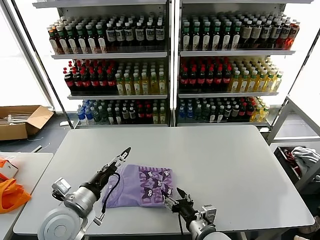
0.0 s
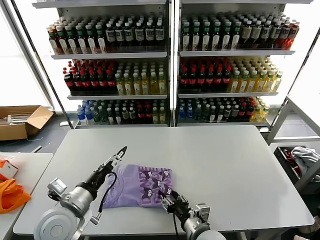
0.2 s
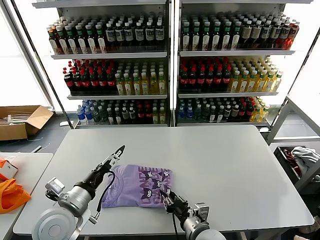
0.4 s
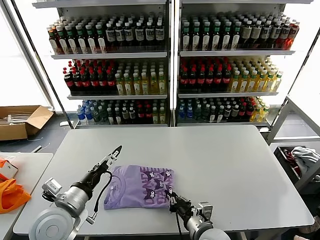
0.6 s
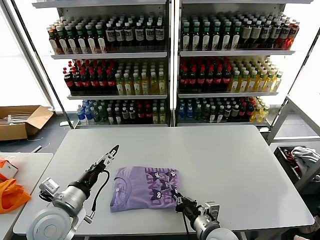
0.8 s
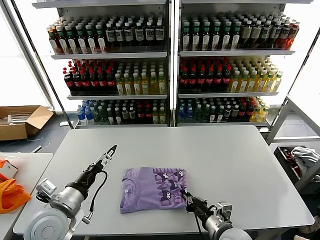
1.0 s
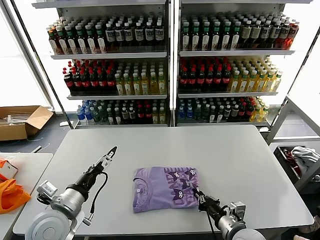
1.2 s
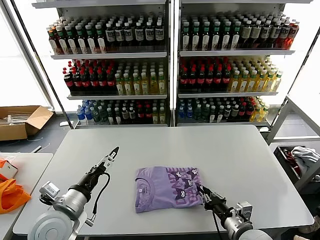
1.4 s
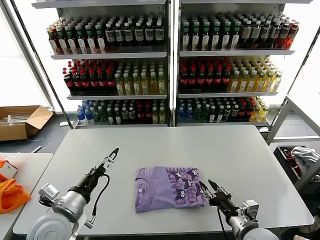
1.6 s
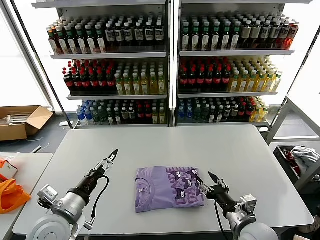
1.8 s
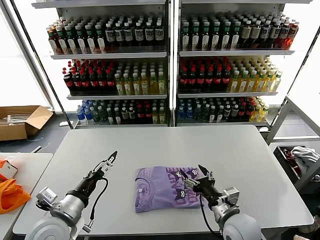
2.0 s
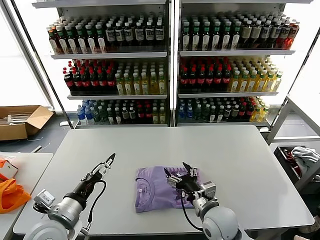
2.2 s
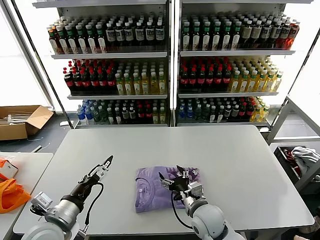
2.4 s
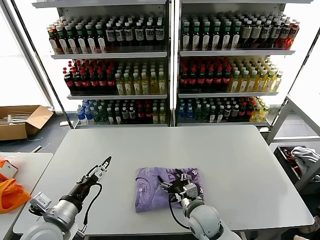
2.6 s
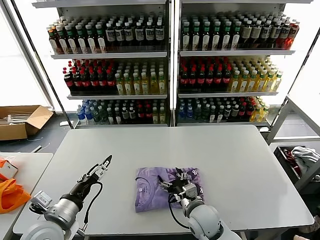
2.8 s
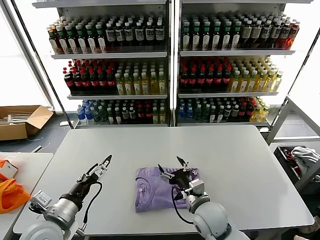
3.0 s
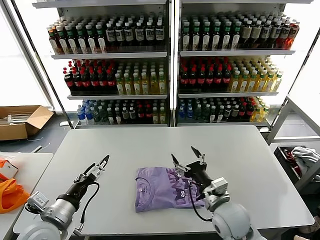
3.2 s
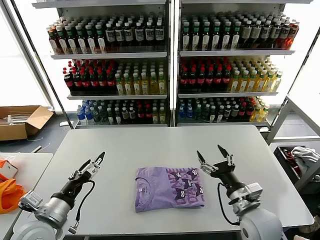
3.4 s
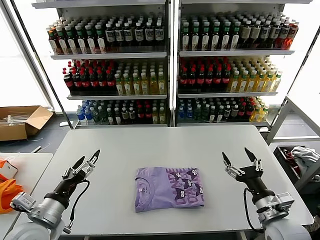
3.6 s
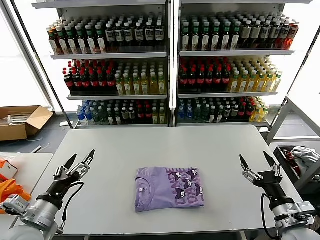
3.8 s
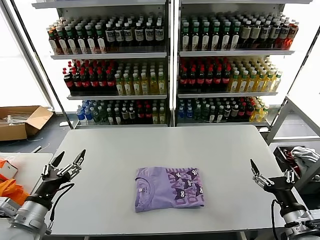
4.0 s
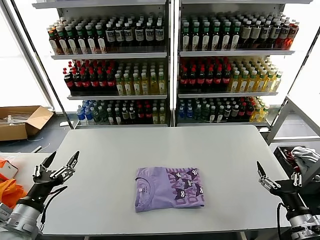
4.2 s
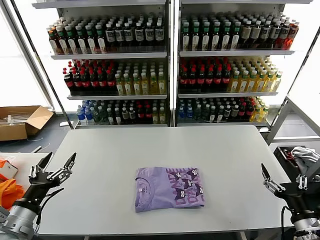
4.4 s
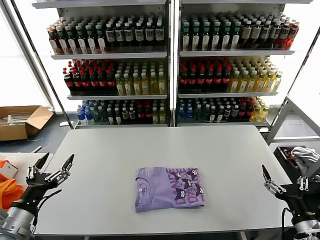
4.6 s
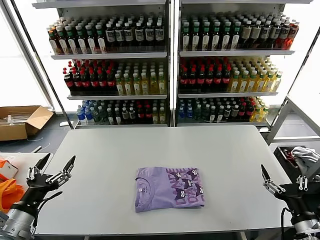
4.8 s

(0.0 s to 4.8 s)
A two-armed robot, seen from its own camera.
Task of the whole recording: fold and organize the clothes.
Step, 0.0 s - 2.8 s: Drag the clothes to the center of the table.
0.0 s - 1.6 s: The right gripper is displaced to the right by about 10 cm, and closes up.
1.6 s - 3.2 s: The right gripper goes approximately 10 cm to the left and forward, and opens up.
3.2 s - 4.8 s: The left gripper moves to the left, approximately 10 cm. Meanwhile the right gripper goes roughly 25 cm to the right and backward.
